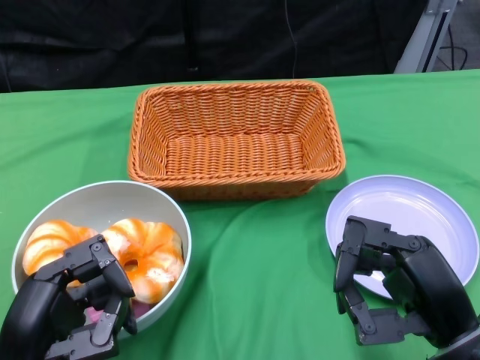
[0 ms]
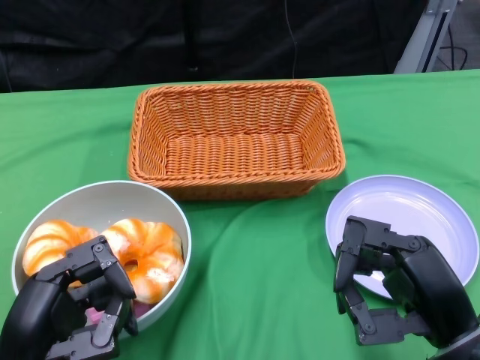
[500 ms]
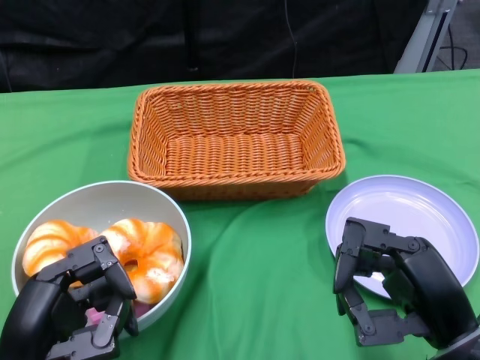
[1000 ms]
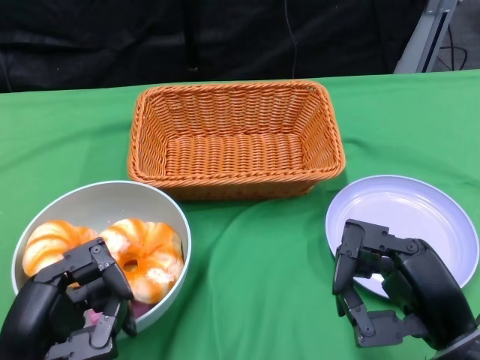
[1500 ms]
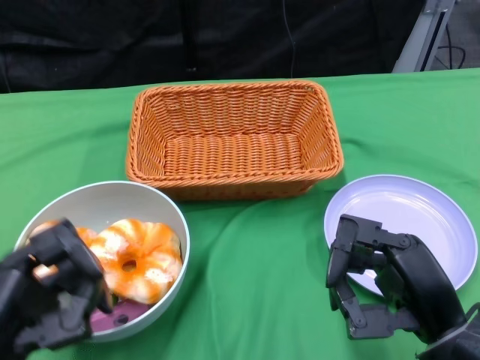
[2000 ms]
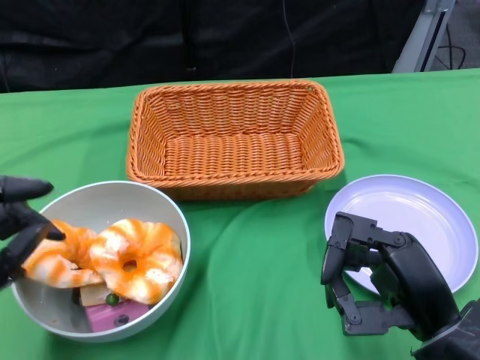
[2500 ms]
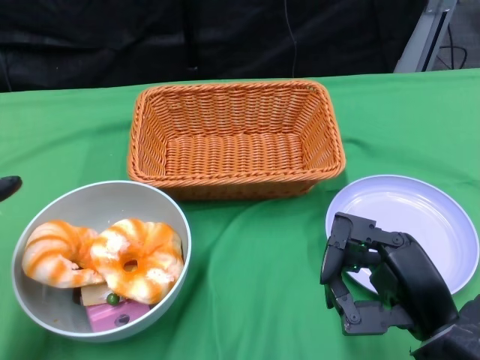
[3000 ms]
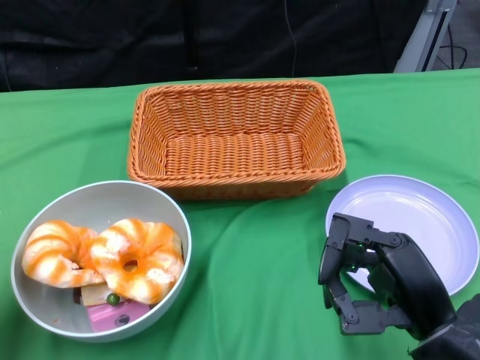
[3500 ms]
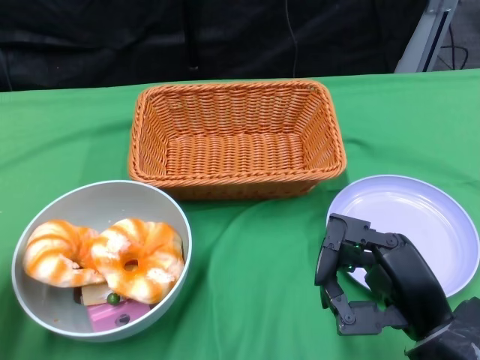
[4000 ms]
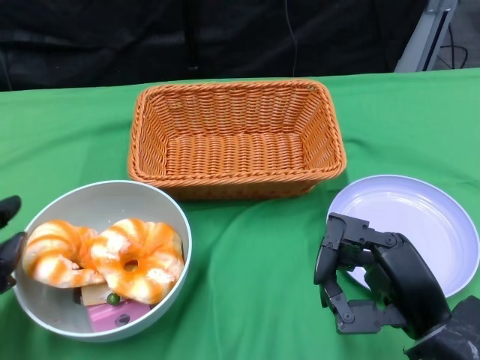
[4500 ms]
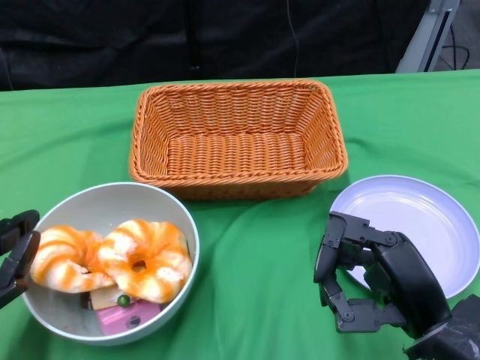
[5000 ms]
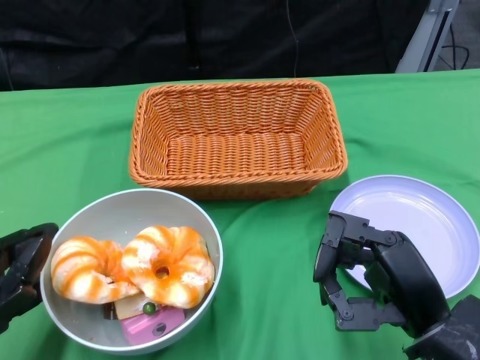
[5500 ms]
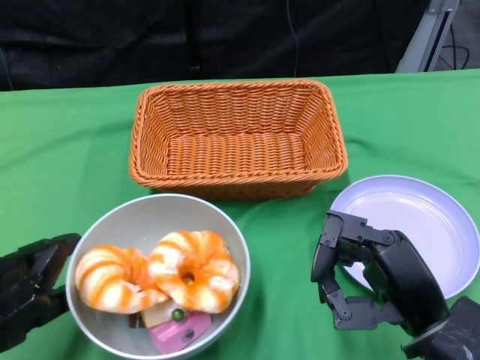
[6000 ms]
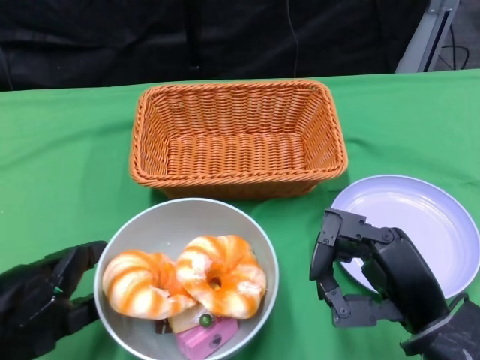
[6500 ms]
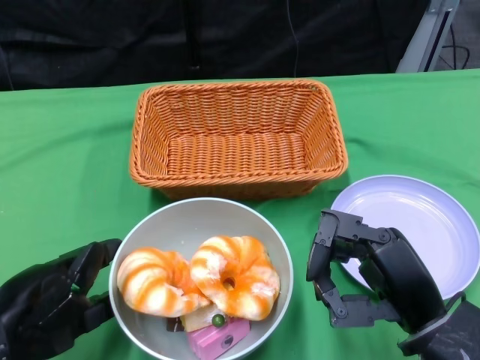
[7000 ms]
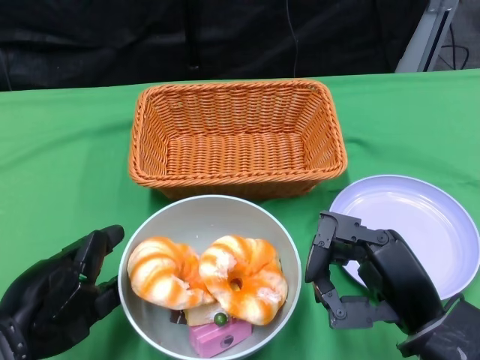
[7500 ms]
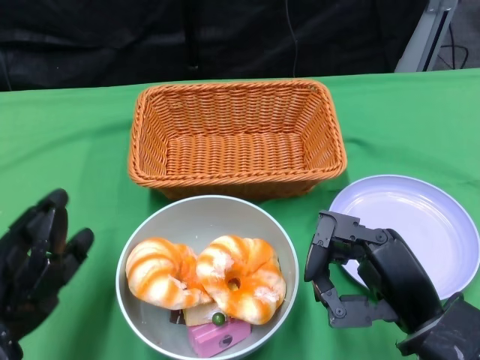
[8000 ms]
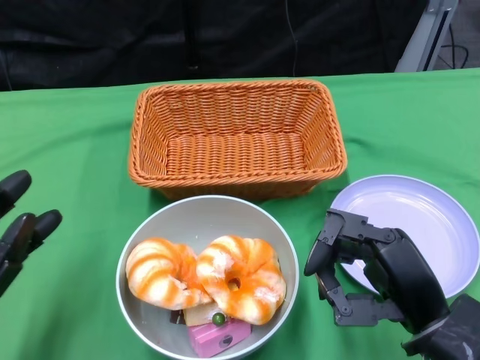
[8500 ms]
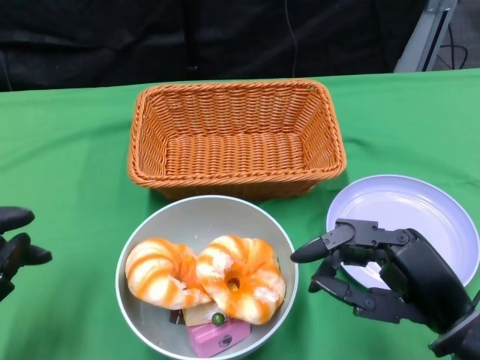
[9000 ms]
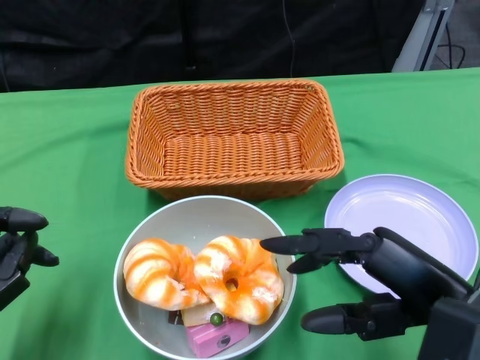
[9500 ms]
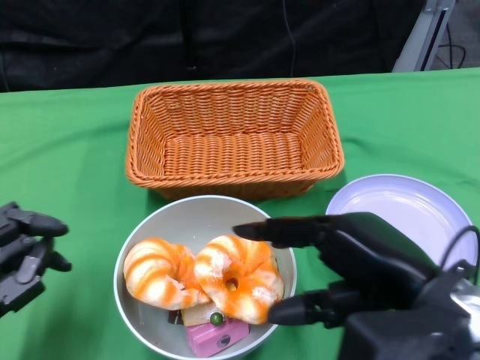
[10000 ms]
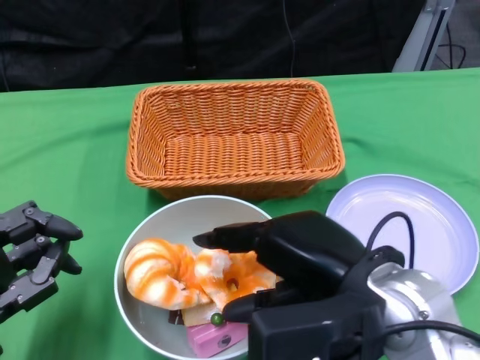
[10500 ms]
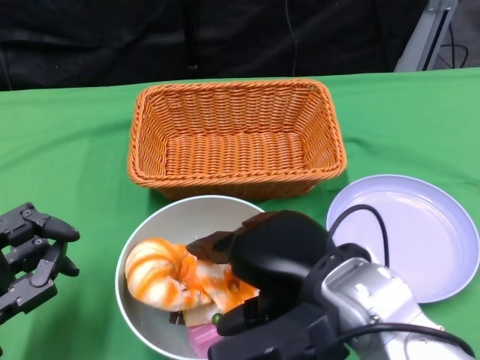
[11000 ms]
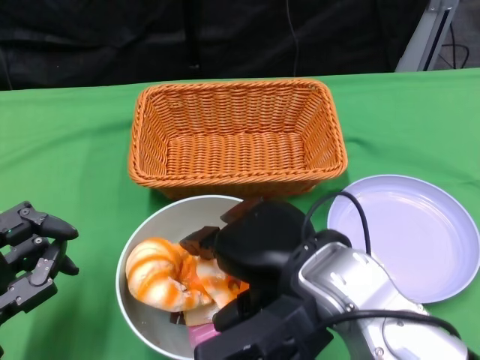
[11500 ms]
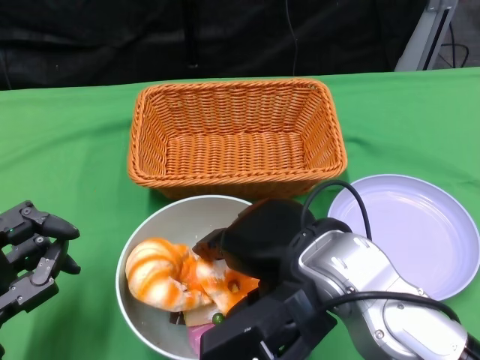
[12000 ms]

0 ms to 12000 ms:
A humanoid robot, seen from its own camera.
Step, 0 ms to 8000 ms: Push the bowl to the center of the table using the left gripper.
2000 ms to 4000 ms: The left hand moves to the left, some 10 cm.
4000 ms to 6000 ms: The left hand shifts by roughly 5 cm.
8000 ms to 10000 ms: The right hand moves upward, about 10 cm. Meanwhile the left hand shifts by about 5 cm.
10000 ms to 12000 ms: The right hand travels to the left by roughly 10 cm.

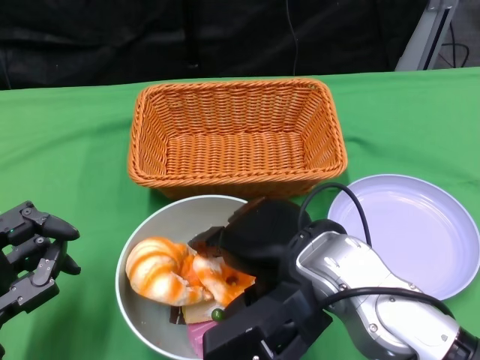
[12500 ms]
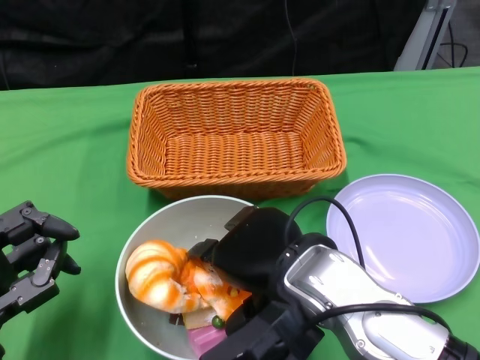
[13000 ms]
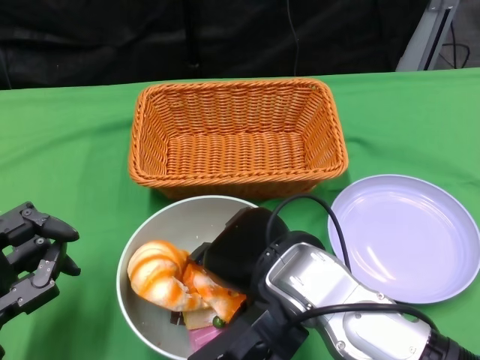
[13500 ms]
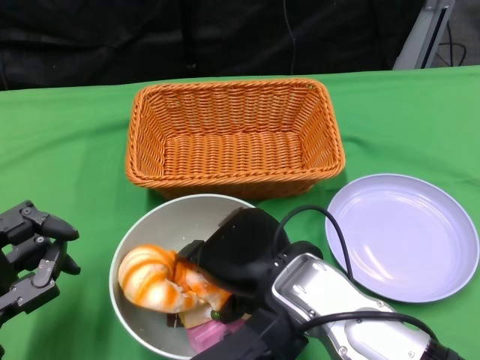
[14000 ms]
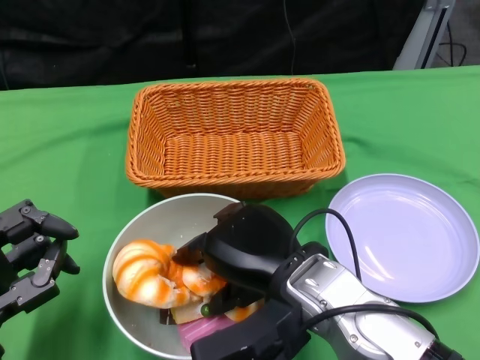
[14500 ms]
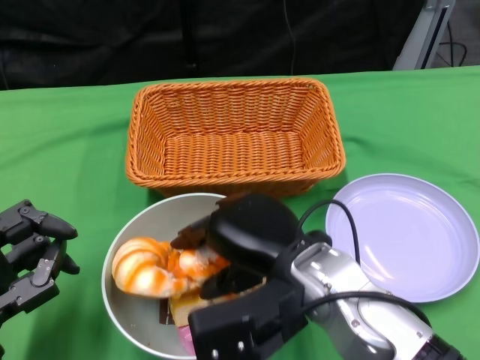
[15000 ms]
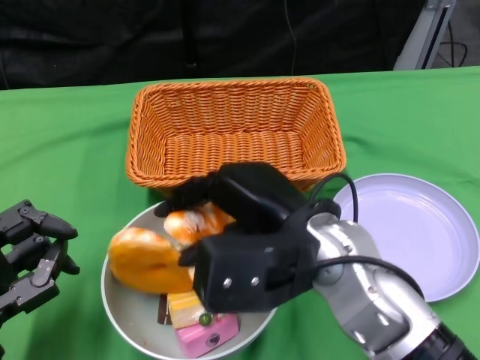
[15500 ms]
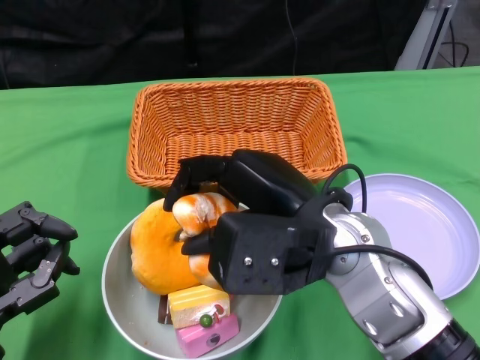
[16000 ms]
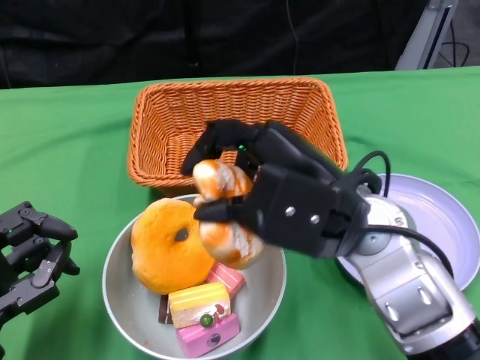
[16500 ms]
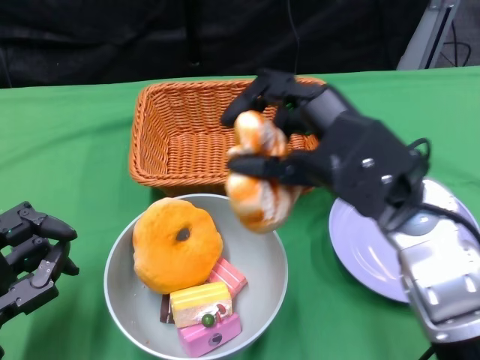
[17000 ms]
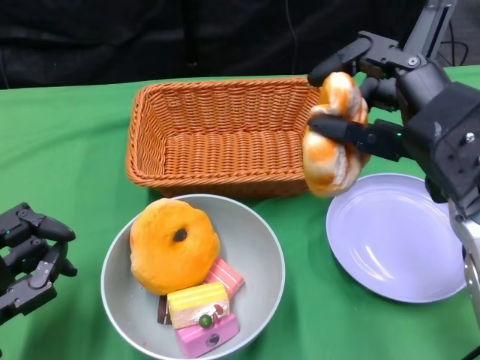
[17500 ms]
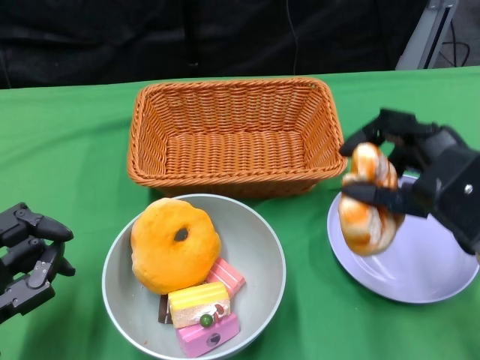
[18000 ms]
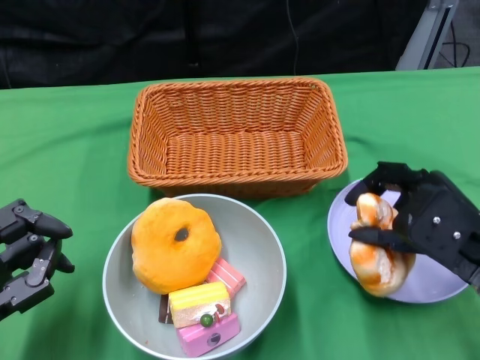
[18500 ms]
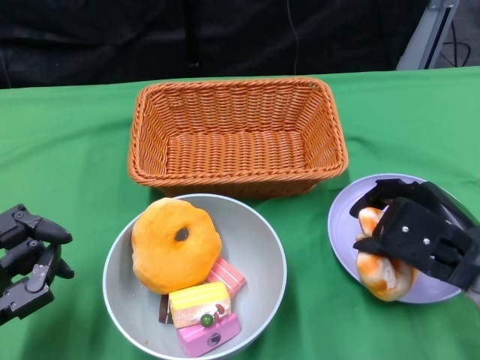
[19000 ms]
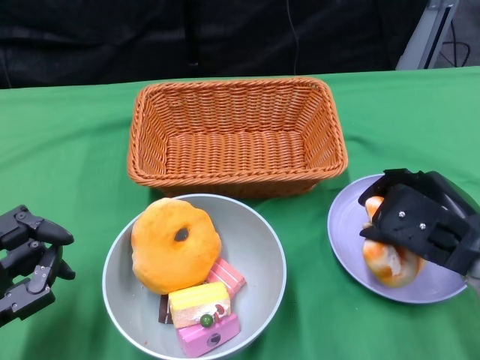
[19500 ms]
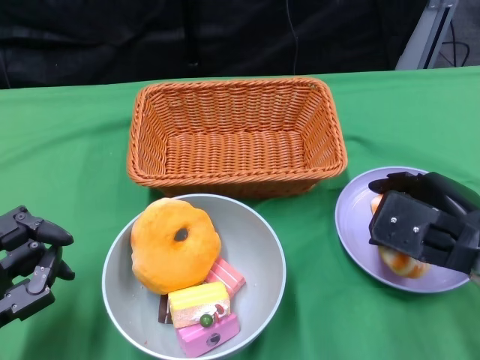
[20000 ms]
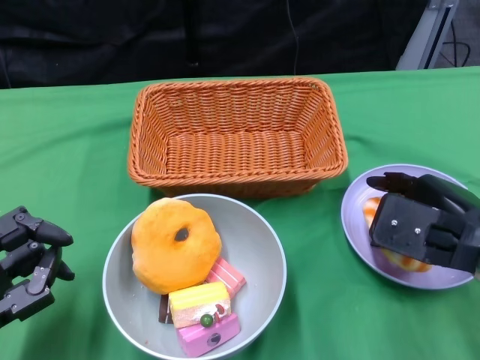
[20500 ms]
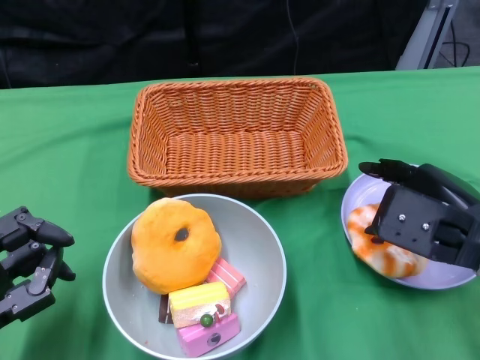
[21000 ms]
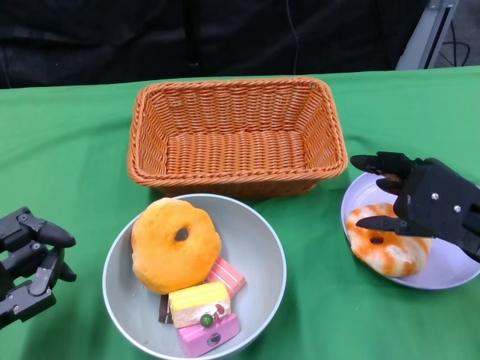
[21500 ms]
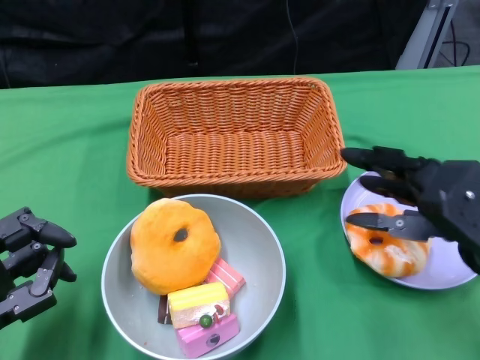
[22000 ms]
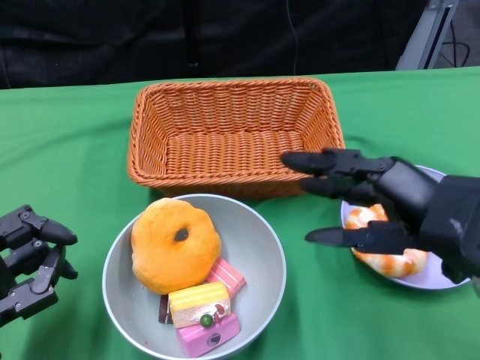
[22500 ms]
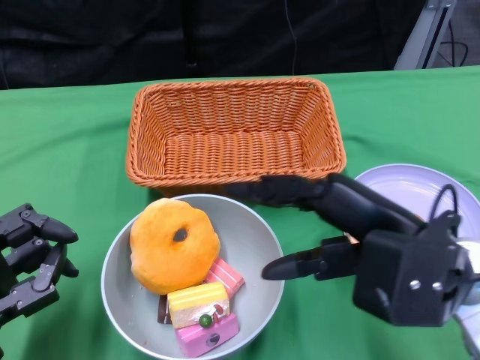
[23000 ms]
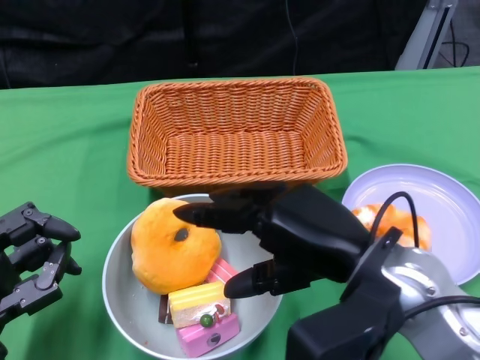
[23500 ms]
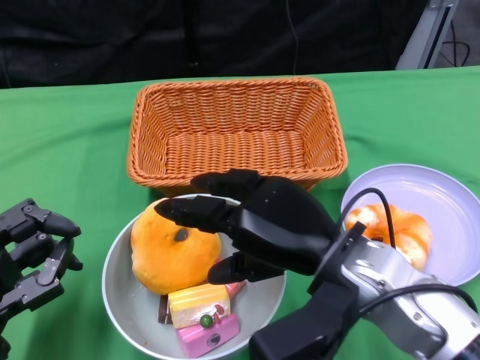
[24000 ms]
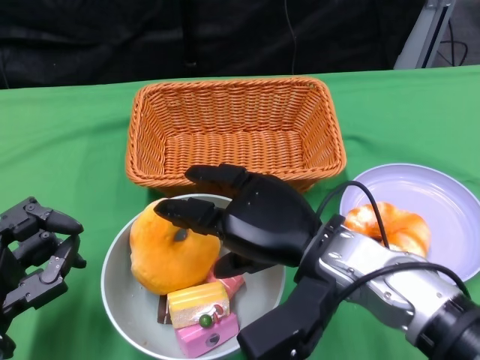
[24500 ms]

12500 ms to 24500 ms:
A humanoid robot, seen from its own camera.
12500 ms to 14500 ms: The hands move only a little.
14500 ms to 16500 ms: The right hand moves upward, roughly 5 cm.
16500 ms to 18500 ms: The right hand goes roughly 15 cm to the right and downward.
20500 ms to 22500 ms: The right hand moves upward, roughly 5 cm.
22500 ms to 24500 ms: The right hand moves to the left and downward, roughly 15 cm.

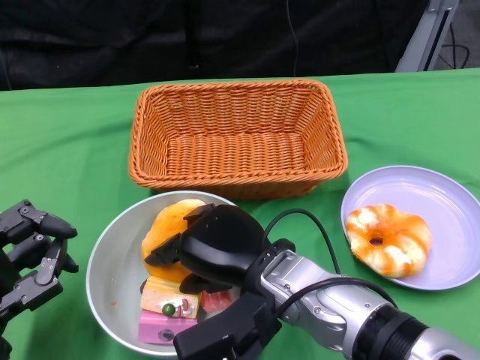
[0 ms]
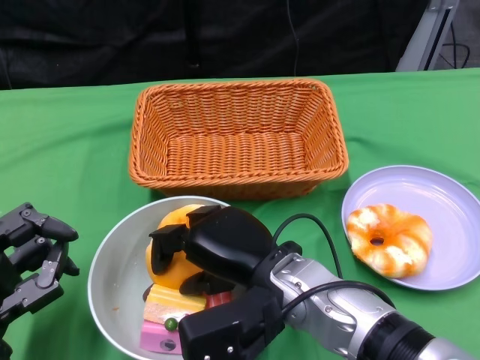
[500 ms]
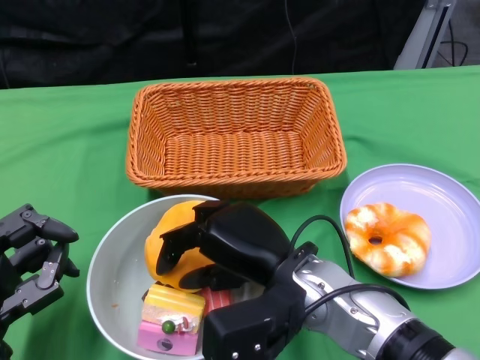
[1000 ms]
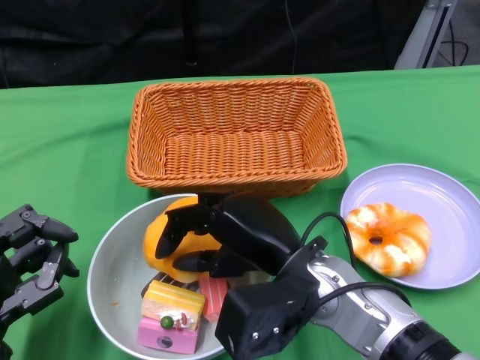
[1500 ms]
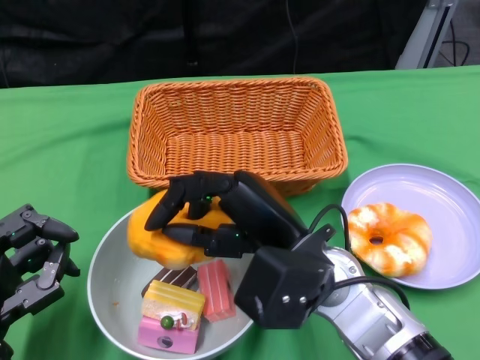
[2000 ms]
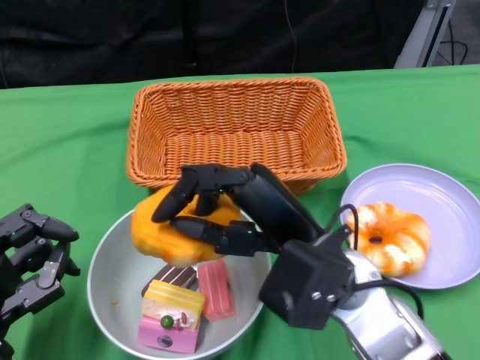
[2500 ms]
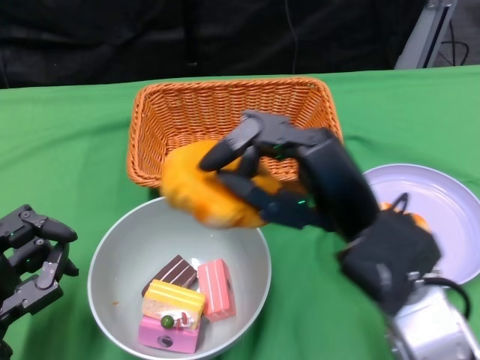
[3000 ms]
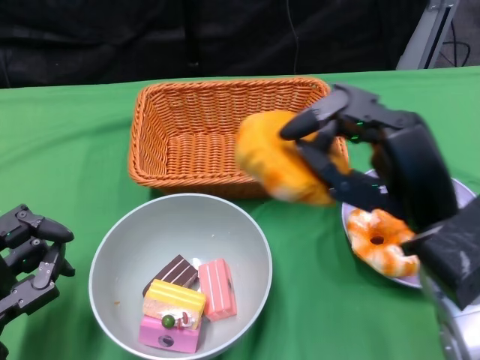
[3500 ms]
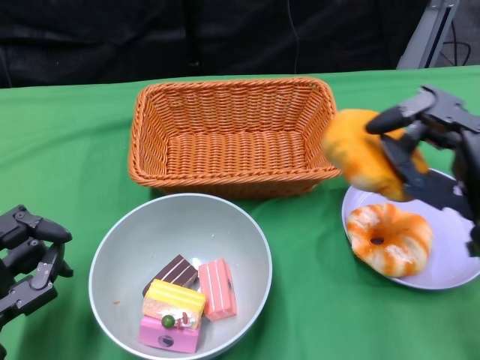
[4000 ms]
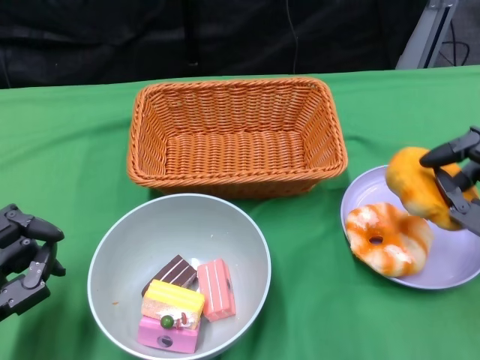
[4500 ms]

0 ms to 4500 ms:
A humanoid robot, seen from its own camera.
2000 ms to 4500 ms: The right hand goes approximately 20 cm to the right.
